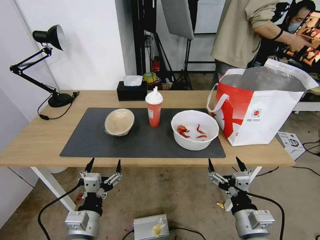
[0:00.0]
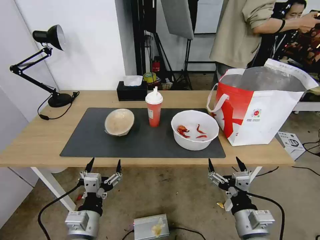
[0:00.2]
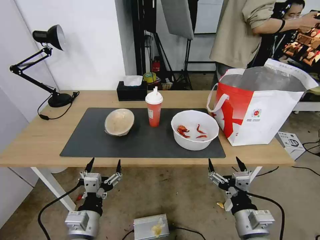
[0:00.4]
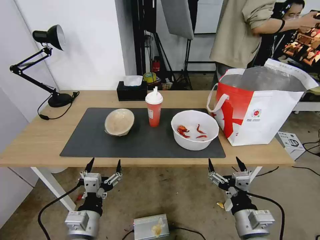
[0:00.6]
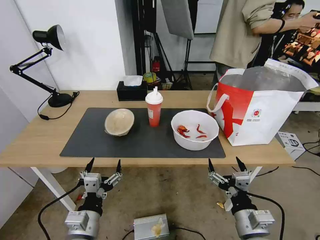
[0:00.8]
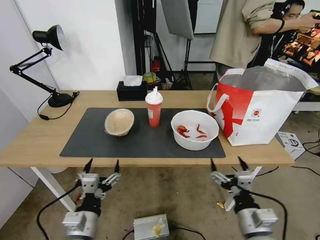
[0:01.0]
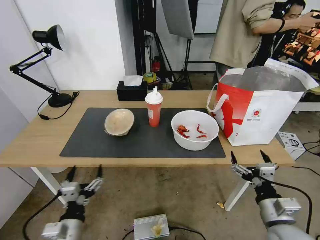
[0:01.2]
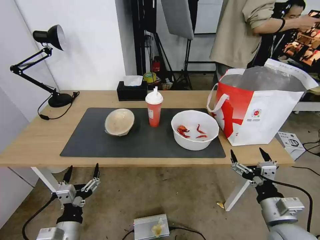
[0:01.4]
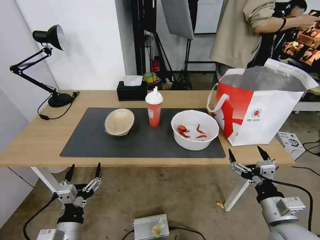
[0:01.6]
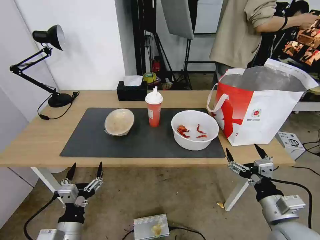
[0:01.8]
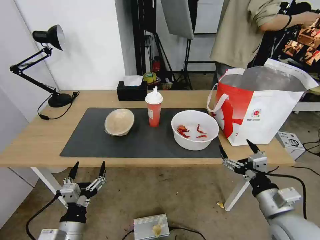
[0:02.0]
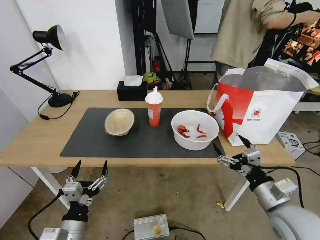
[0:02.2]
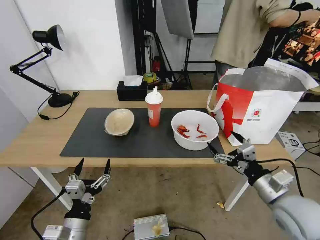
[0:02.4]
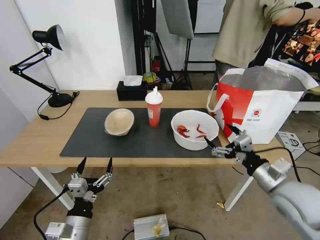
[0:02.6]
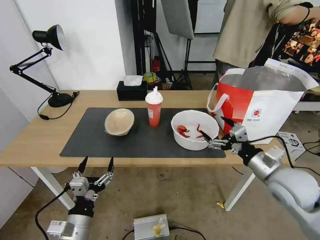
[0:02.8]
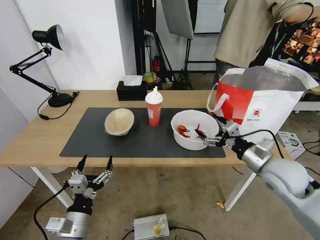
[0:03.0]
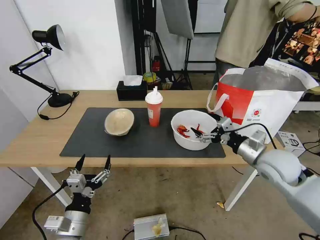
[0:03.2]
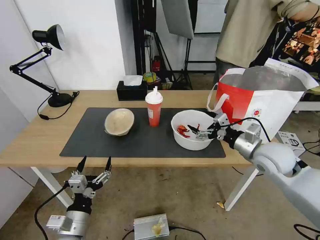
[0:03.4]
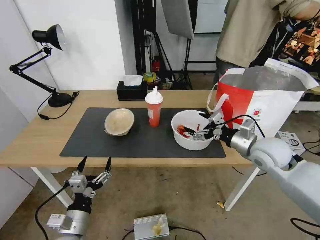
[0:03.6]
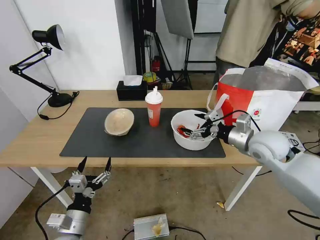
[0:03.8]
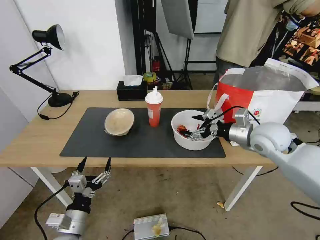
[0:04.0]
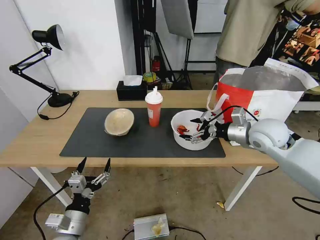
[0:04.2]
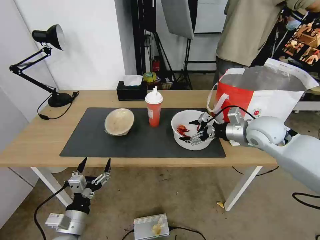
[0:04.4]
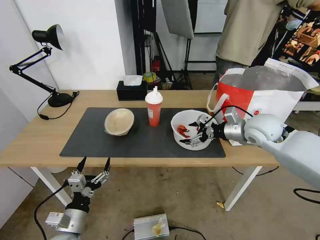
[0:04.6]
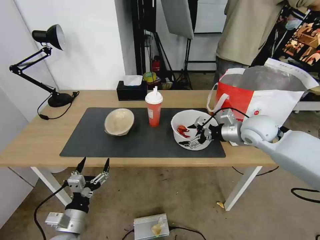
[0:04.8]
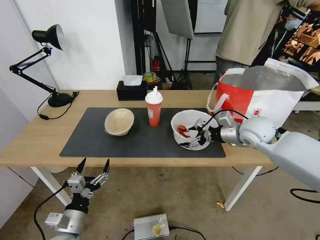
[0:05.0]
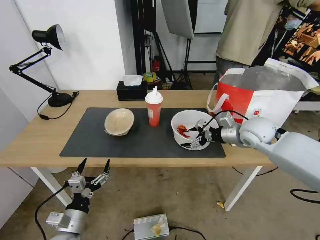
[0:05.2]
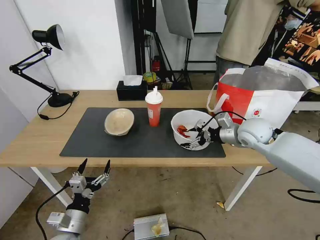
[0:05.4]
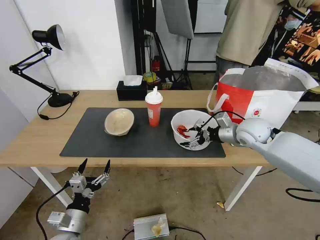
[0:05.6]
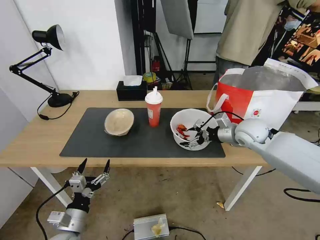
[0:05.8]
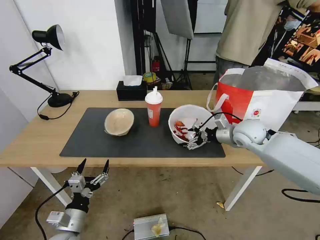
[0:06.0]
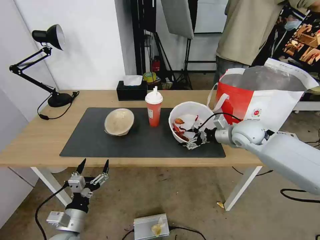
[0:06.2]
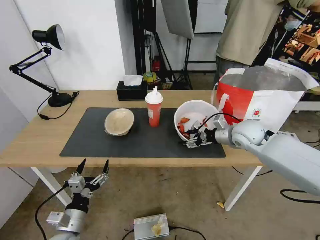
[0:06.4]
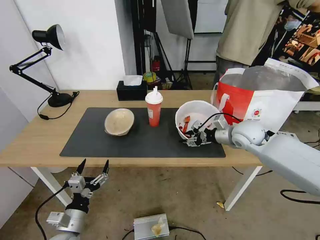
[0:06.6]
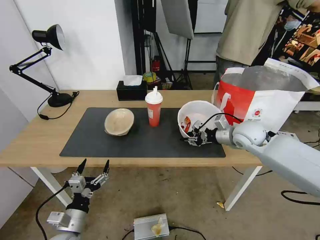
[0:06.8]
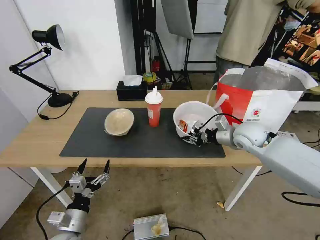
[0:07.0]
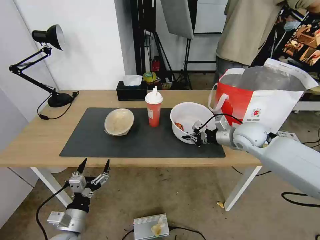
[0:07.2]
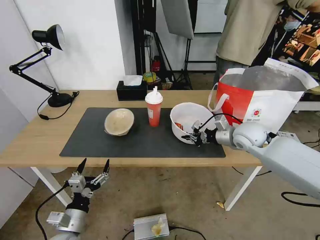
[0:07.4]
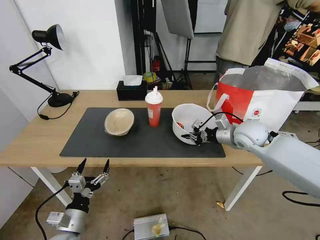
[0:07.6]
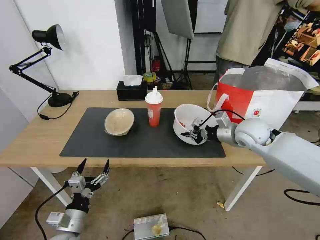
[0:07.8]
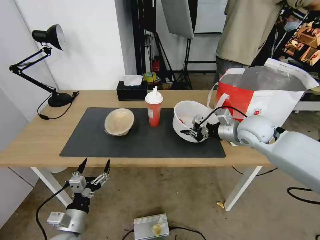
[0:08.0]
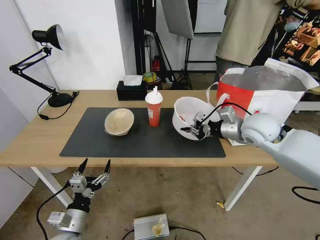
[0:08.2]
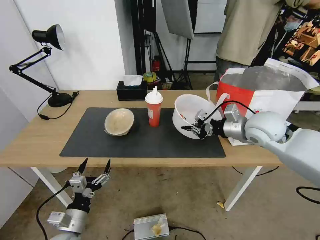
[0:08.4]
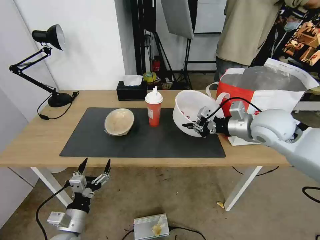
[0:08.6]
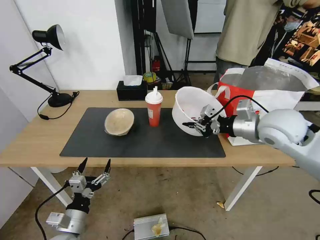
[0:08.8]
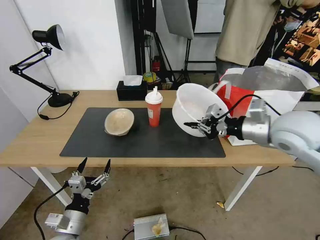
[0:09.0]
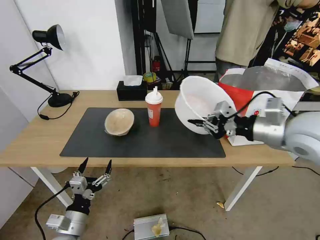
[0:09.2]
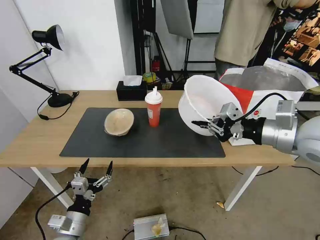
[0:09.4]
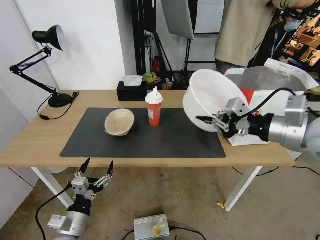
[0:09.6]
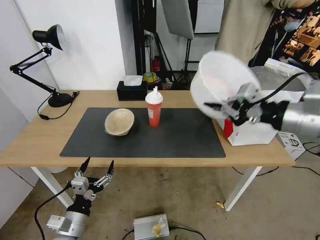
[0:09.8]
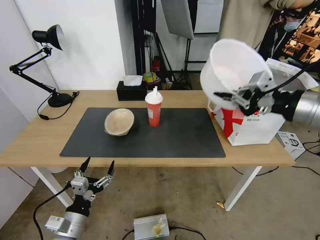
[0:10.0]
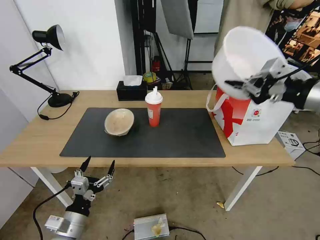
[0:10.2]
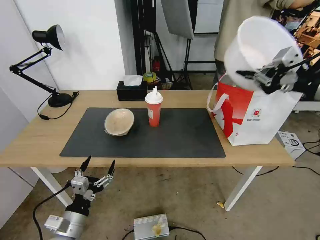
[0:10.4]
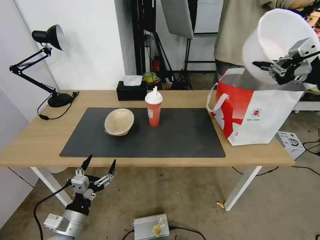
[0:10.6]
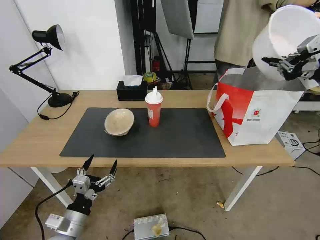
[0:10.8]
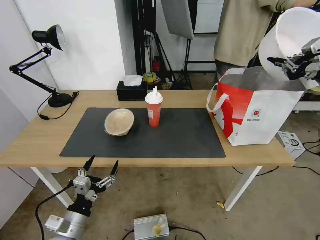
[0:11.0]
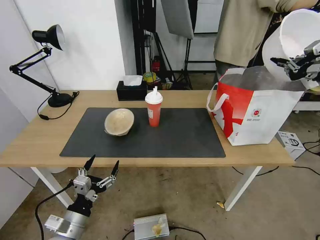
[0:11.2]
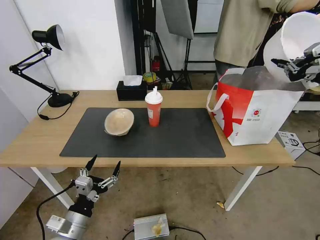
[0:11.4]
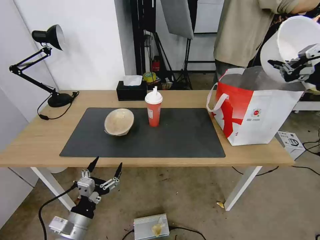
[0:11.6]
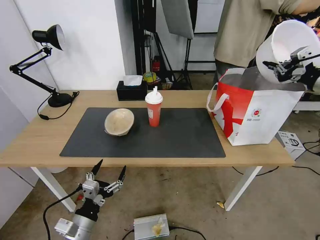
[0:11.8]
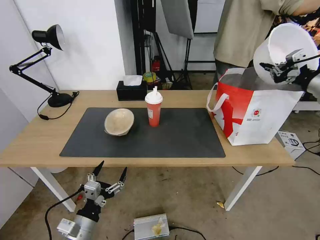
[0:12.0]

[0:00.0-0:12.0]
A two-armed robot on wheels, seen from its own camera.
Task of the whole recording: Pick up the trash from the table and place it into the takeout bag.
0:01.6 to 0:03.0: The right gripper shifts some 15 cm forward and upward.
0:03.0 to 0:04.4: The right gripper shifts some 15 cm forward and upward.
0:04.4 to 0:06.0: The right gripper ends up about 5 cm from where it was.
0:06.0 to 0:07.6: The right gripper closes up.
0:07.6 to 0:09.0: The right gripper shifts about 15 cm upward and backward.
0:09.0 to 0:10.4: The right gripper is displaced upward and to the right by some 15 cm.
0:10.4 to 0:12.0: The right gripper is displaced forward, to the right and downward by approximately 15 cm.

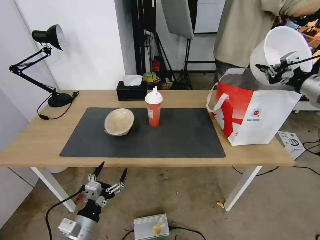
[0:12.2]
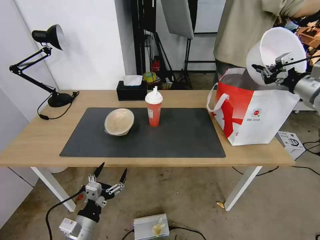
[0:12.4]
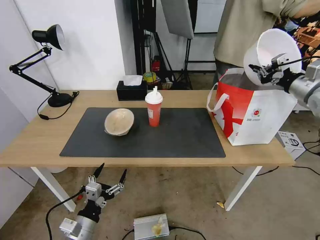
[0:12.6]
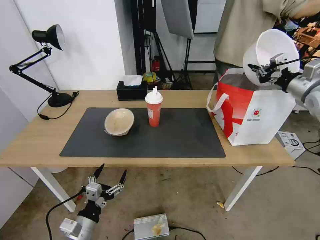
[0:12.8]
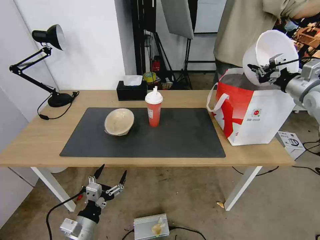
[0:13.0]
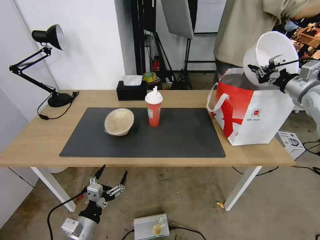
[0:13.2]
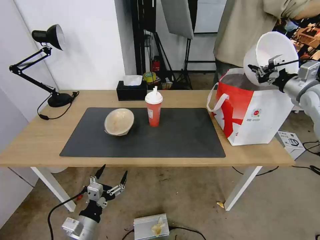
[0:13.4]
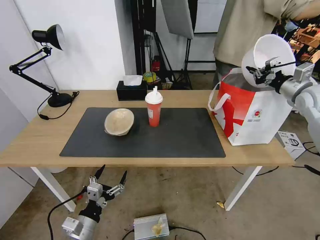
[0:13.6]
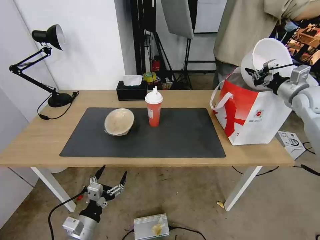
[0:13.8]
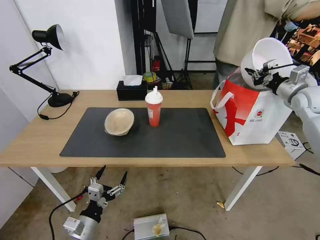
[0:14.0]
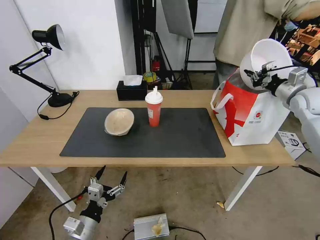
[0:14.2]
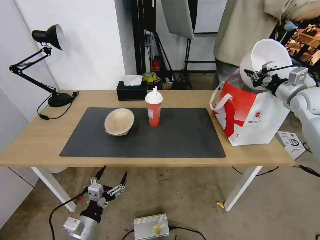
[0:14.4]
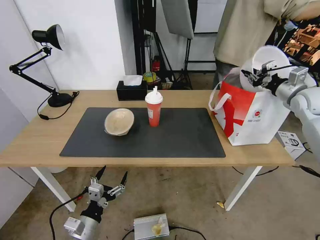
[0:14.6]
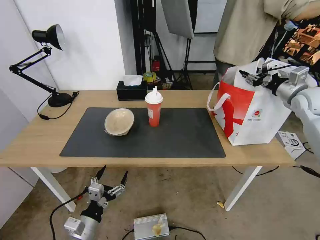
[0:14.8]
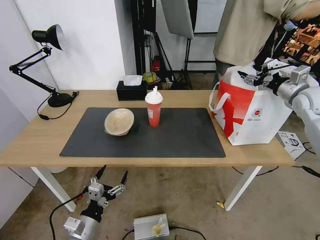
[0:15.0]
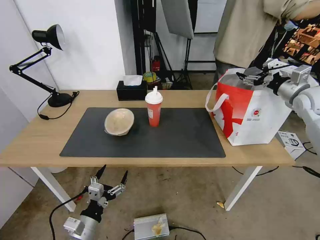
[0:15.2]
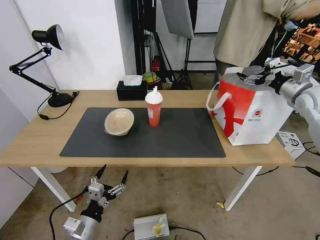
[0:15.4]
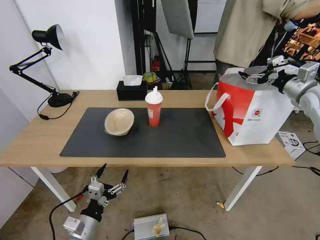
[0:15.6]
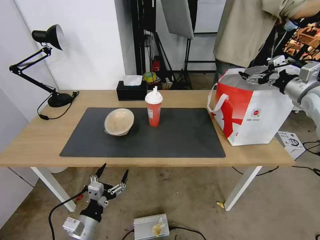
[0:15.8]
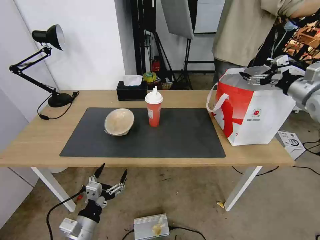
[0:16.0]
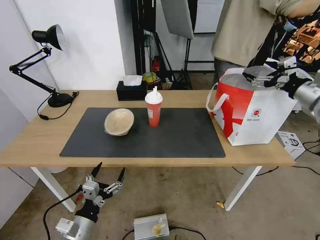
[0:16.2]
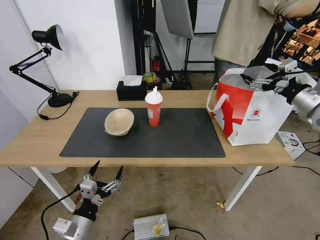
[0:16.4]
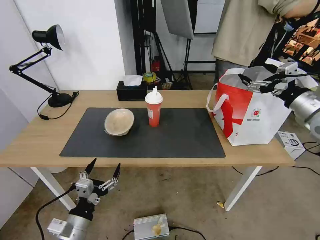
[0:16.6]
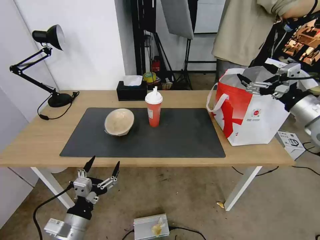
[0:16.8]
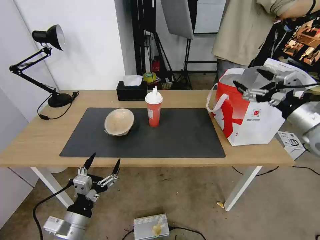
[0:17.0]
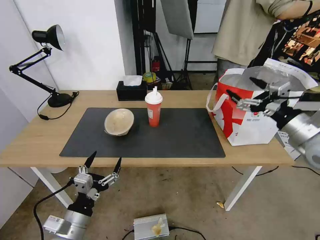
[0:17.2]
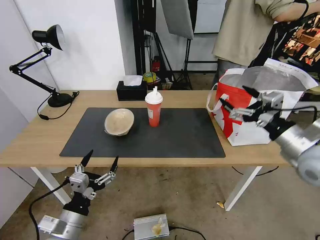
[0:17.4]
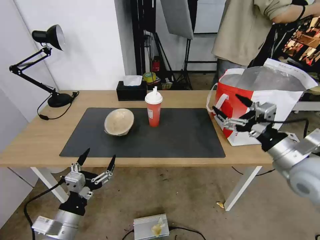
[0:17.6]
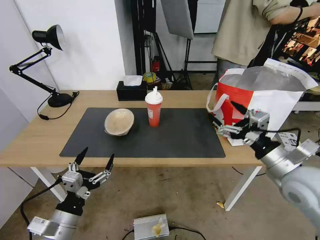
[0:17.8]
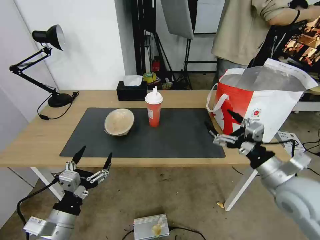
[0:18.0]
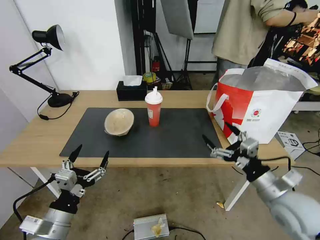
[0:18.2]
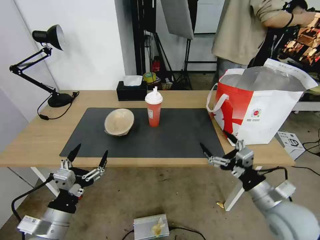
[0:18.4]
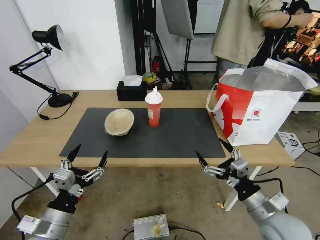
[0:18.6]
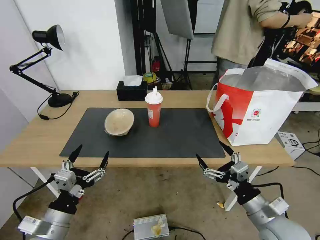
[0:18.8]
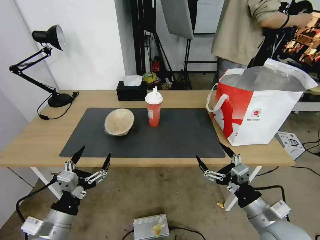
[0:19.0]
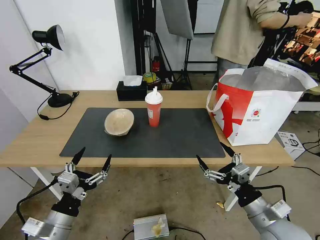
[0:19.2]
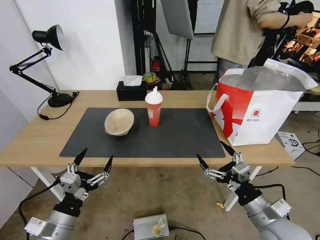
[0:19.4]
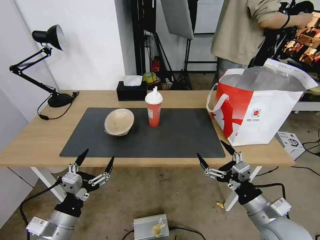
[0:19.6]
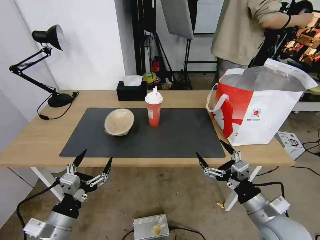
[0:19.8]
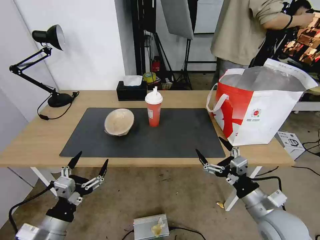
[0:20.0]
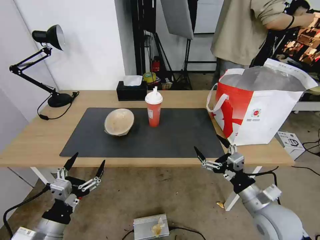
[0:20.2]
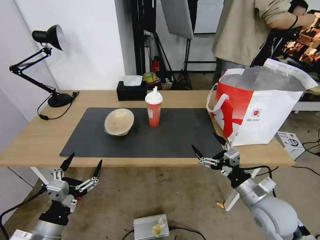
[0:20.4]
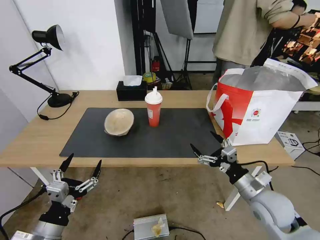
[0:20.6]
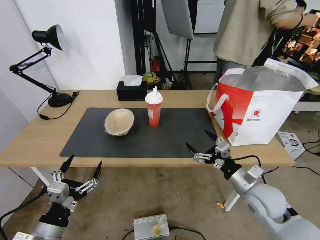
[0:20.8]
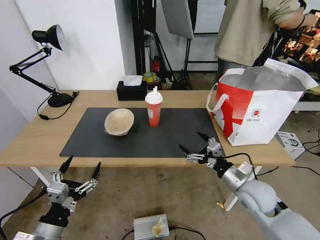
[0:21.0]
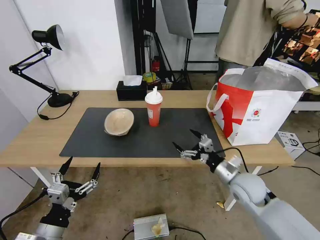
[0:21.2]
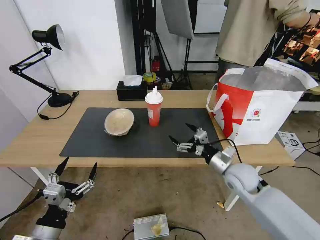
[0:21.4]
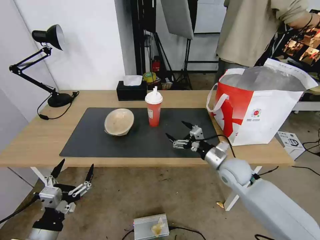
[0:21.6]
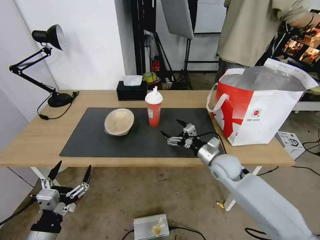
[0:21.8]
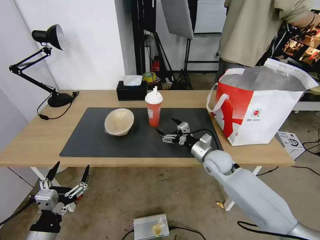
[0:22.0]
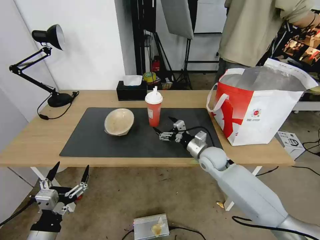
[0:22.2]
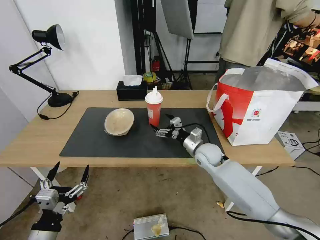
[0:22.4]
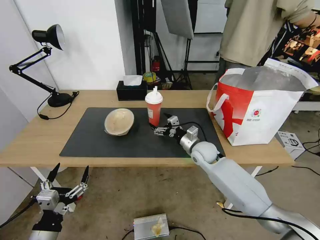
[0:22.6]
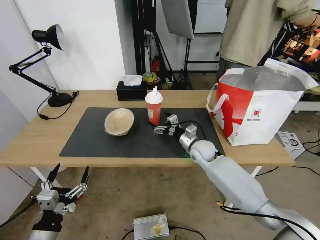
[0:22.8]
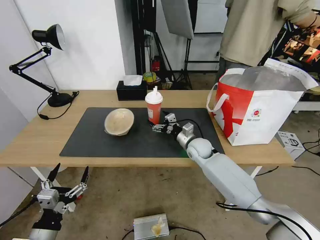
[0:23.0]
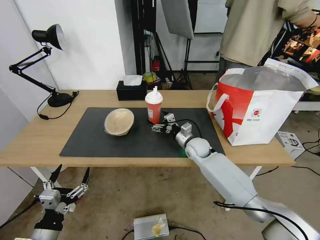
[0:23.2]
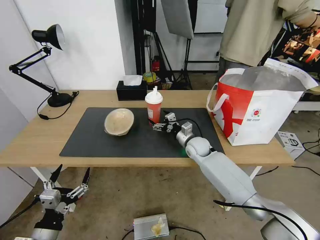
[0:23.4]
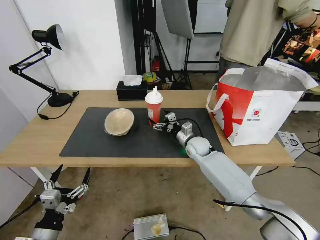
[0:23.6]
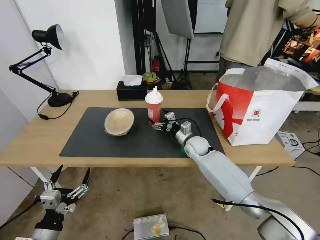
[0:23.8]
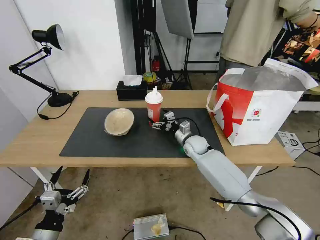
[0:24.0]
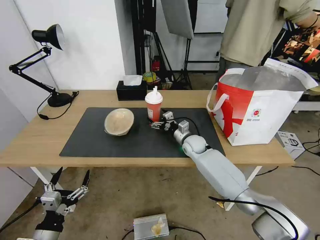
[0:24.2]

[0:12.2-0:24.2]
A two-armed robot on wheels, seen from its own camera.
Task of the whole recording: Pick up the trash from the table and place it into the takeout bag.
0:12.2 to 0:13.8: The right gripper goes roughly 10 cm forward and downward.
0:13.8 to 0:15.2: The right gripper opens up.
0:15.2 to 0:16.6: The right gripper moves backward, about 10 cm.
0:16.6 to 0:18.2: The right gripper shifts some 25 cm backward, downward and to the left; the left gripper goes about 5 cm upward.
0:18.2 to 0:19.8: The right gripper changes place by roughly 5 cm.
0:19.8 to 0:21.2: The right gripper moves forward, about 15 cm.
0:21.2 to 0:22.6: The right gripper heads forward and to the left, covering roughly 20 cm.
0:22.6 to 0:24.2: The right gripper moves forward, some 5 cm.
